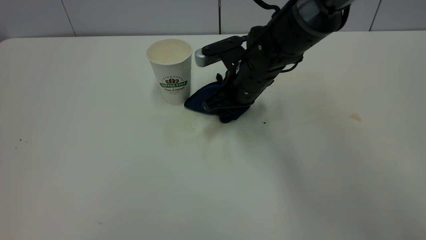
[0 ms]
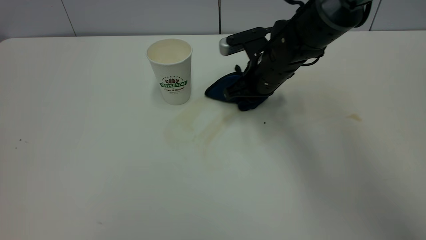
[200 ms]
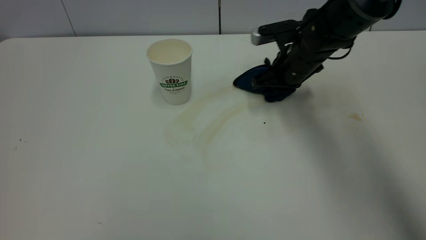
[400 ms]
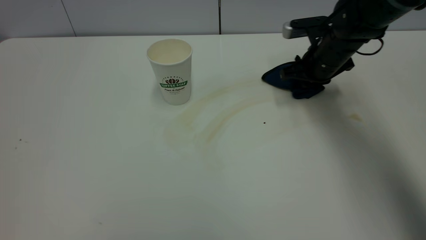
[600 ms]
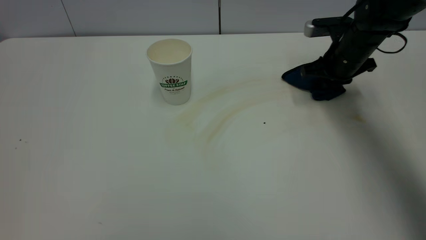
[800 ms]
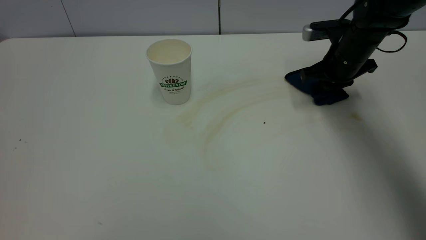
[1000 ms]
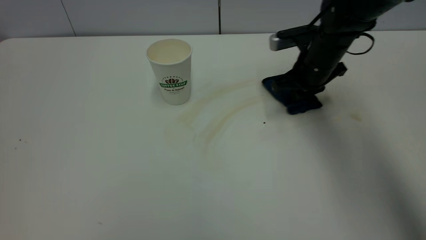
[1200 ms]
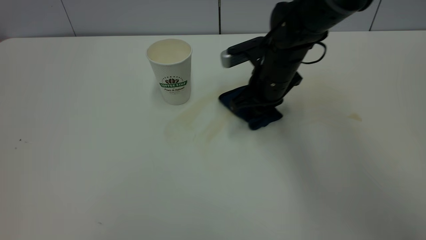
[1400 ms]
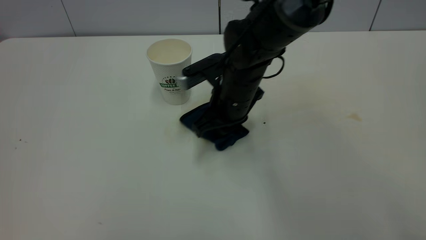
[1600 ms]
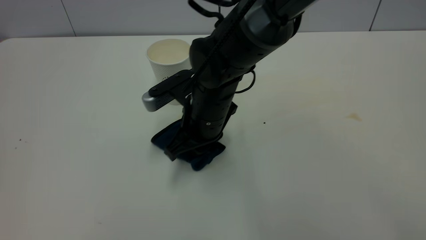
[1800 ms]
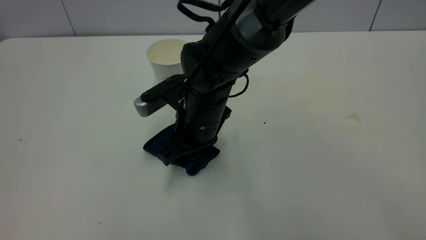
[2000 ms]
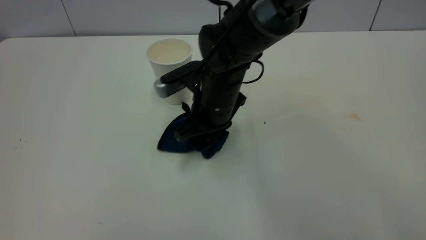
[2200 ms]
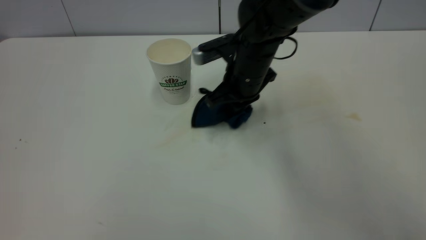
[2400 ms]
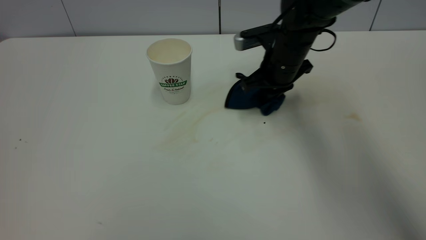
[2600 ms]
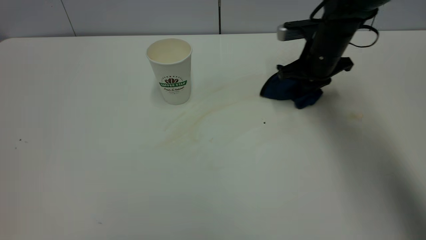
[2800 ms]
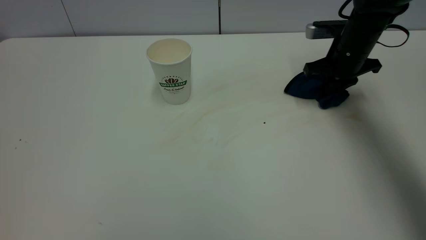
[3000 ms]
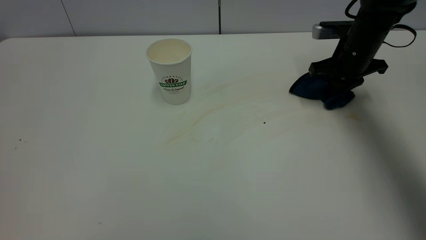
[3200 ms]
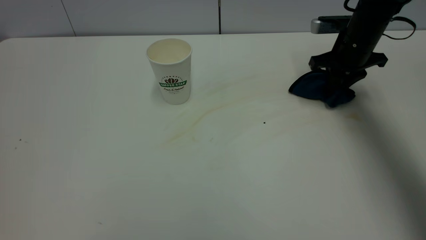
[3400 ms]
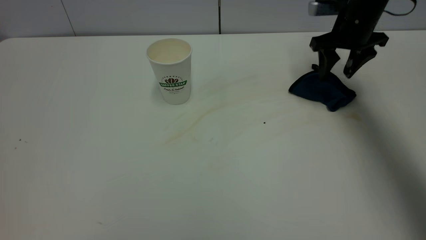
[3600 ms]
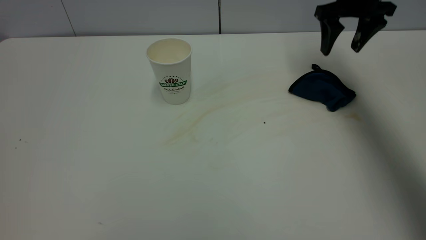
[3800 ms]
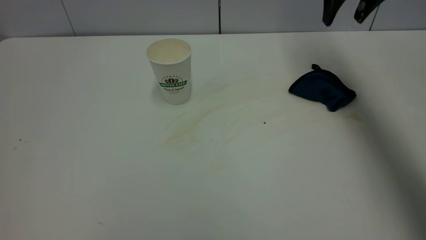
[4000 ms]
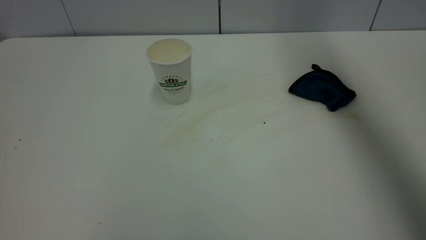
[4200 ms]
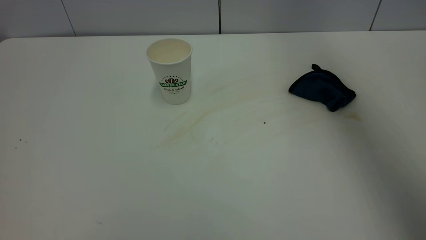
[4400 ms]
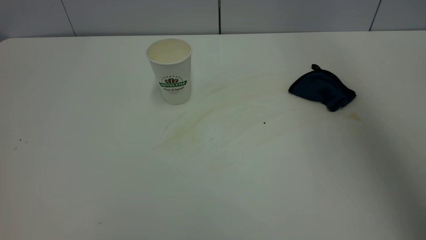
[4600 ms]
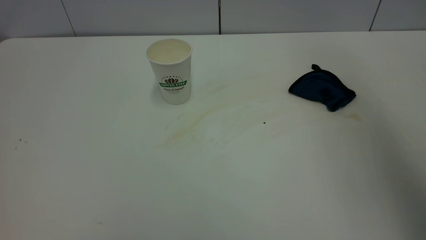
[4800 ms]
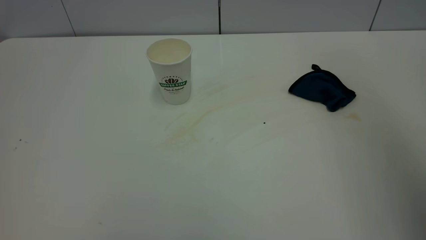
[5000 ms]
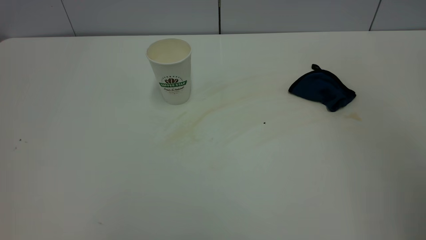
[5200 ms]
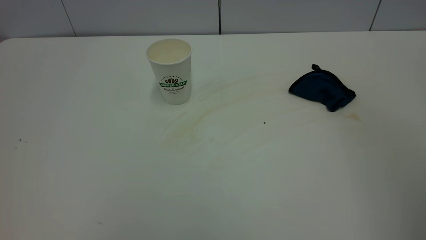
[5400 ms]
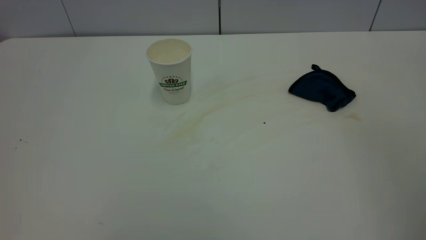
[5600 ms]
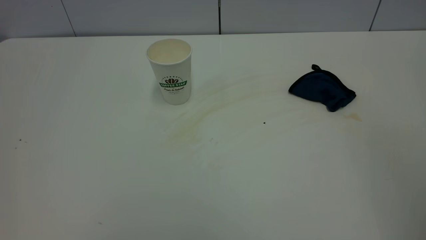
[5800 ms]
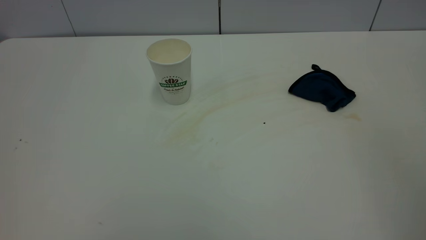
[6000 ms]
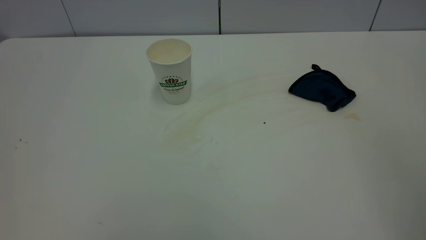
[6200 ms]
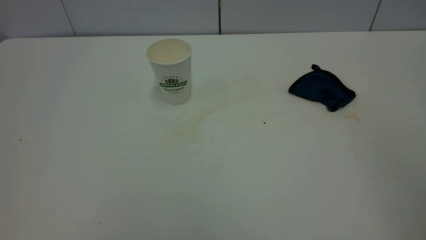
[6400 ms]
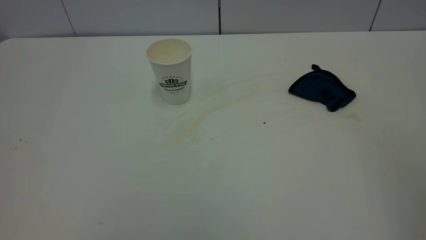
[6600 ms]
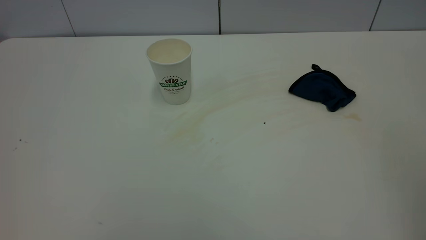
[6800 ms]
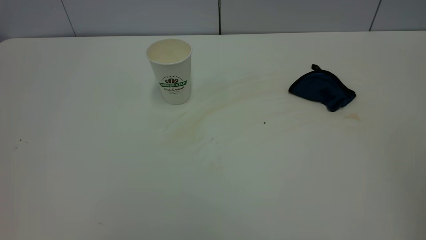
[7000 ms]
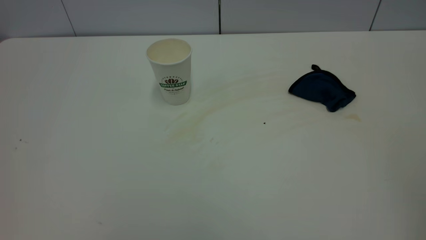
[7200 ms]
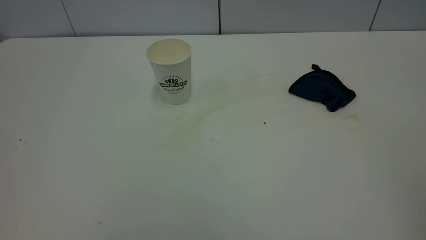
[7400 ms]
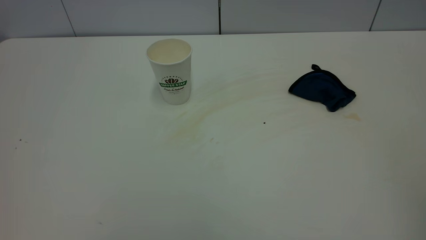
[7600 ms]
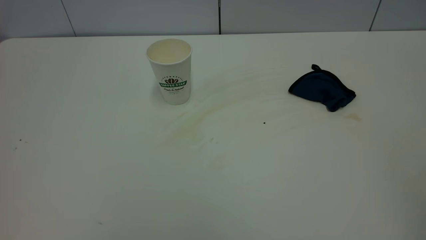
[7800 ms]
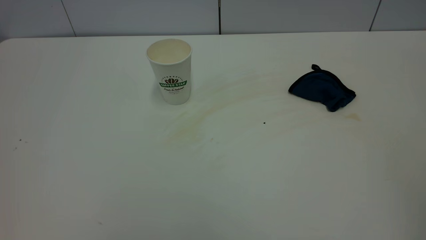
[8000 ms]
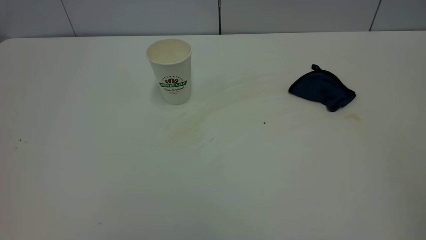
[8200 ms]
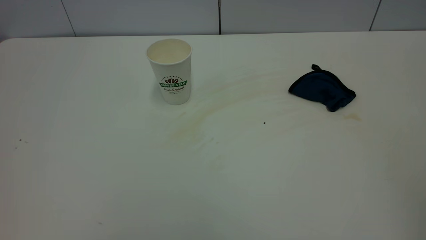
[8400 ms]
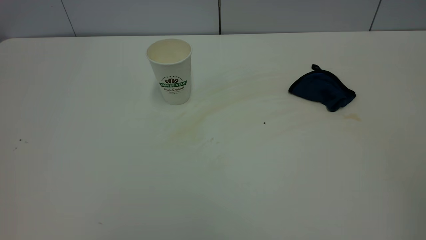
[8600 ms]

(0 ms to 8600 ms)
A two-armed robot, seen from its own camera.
Task of the whole recording: the left gripper pick up the fallen cup and place it upright, the right gripper grasp the blue rag and wipe the tea stain on the table, the right gripper put the blue rag back in its original position.
Step, 0 ms - 3600 ms: Wipe the stains off the table with a rag.
0 ms - 1400 ms: The right gripper goes to the right and returns, roughly 20 cm each way.
1400 ms - 2800 ms: The right gripper goes approximately 15 cm to the right and forward.
2800 ms - 4400 ms: The right gripper moves upward, some 35 cm, and opens.
4400 ms - 5800 ms: The right gripper goes approximately 30 cm backward.

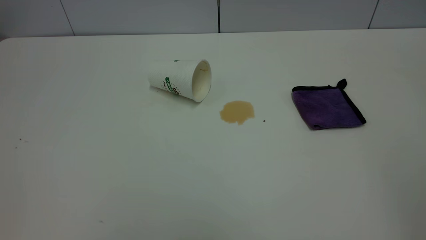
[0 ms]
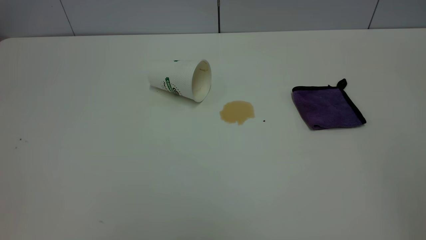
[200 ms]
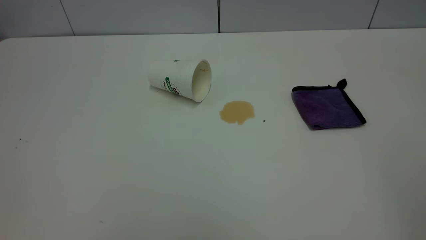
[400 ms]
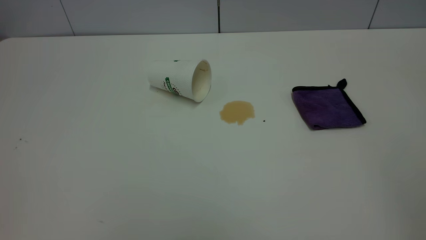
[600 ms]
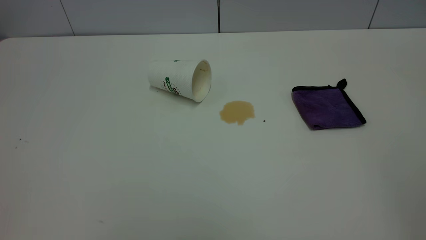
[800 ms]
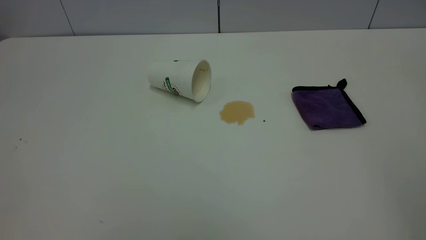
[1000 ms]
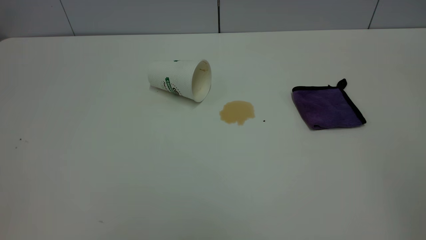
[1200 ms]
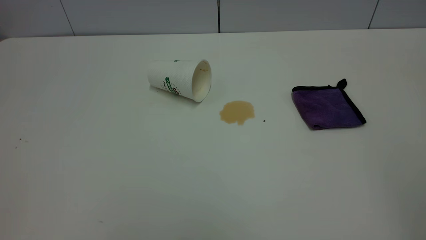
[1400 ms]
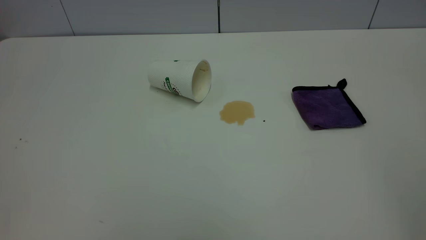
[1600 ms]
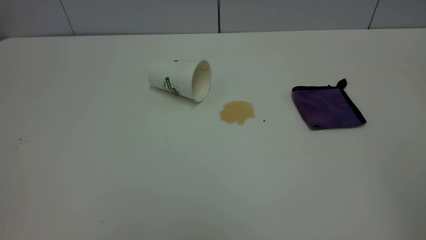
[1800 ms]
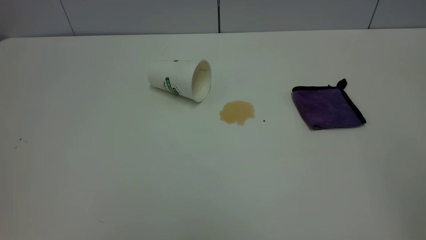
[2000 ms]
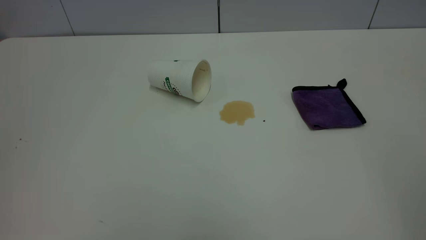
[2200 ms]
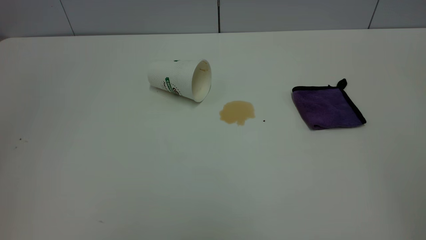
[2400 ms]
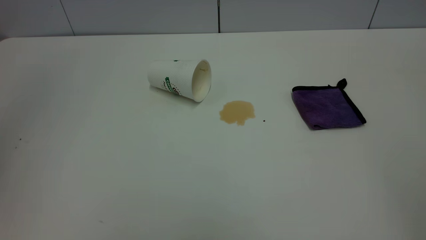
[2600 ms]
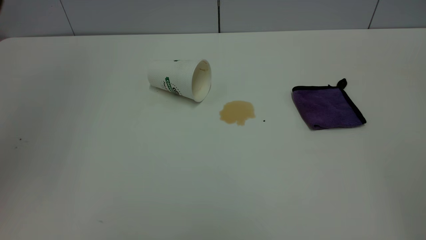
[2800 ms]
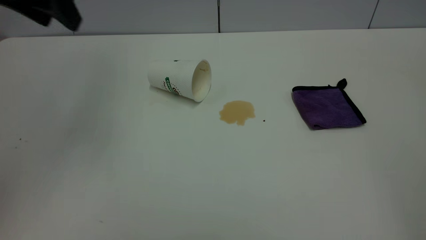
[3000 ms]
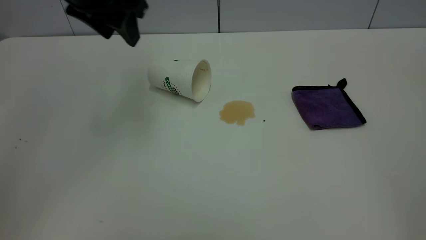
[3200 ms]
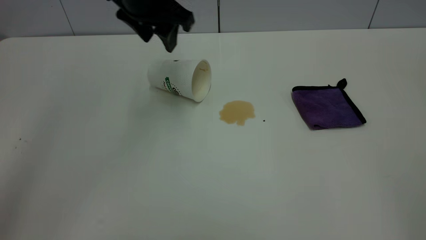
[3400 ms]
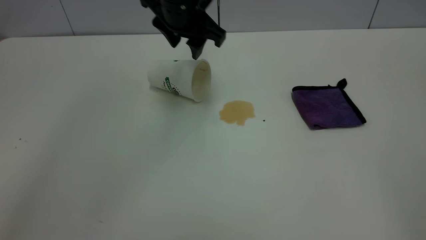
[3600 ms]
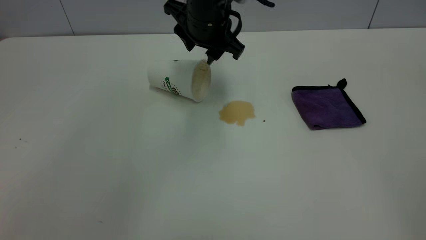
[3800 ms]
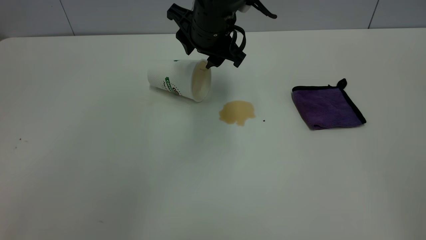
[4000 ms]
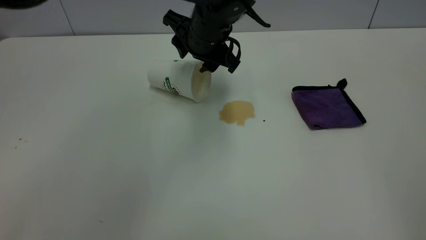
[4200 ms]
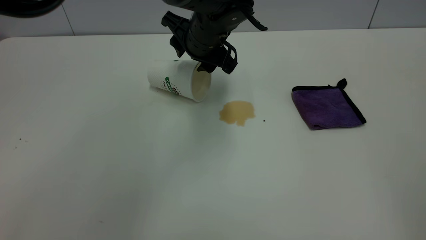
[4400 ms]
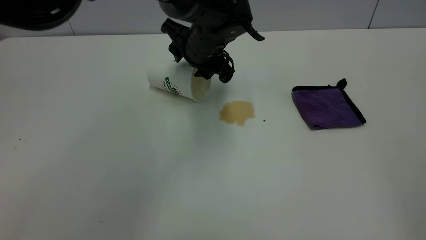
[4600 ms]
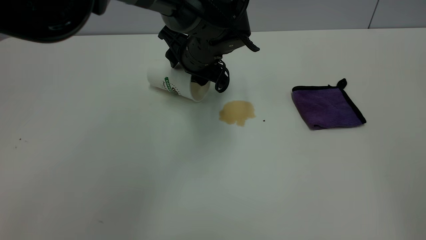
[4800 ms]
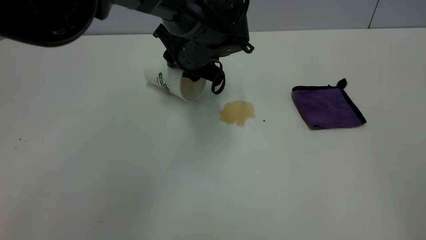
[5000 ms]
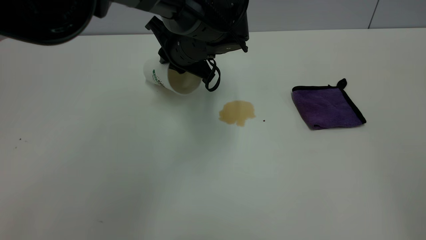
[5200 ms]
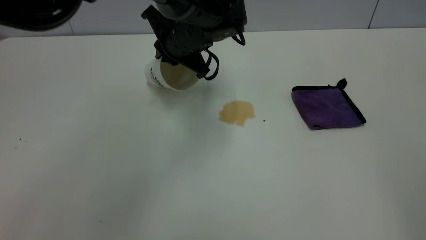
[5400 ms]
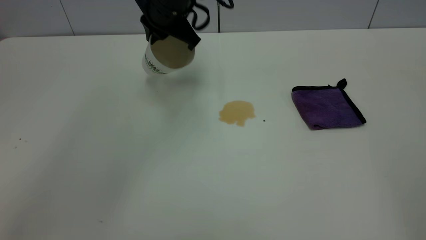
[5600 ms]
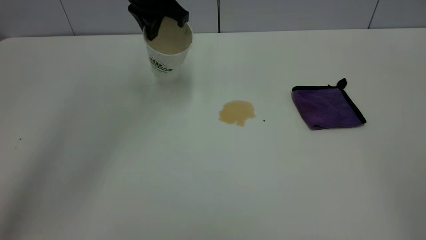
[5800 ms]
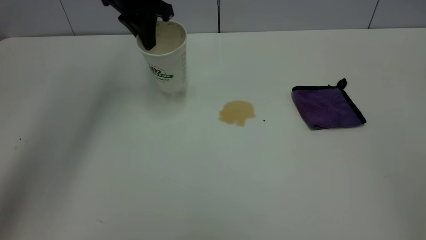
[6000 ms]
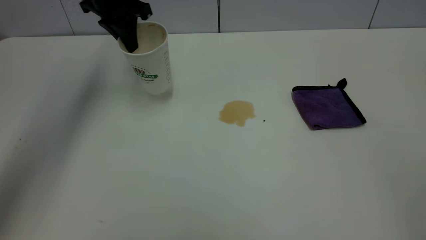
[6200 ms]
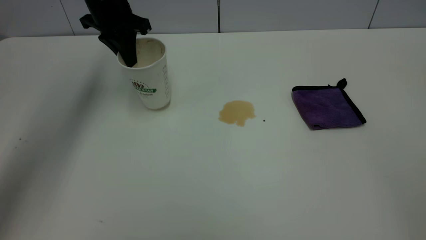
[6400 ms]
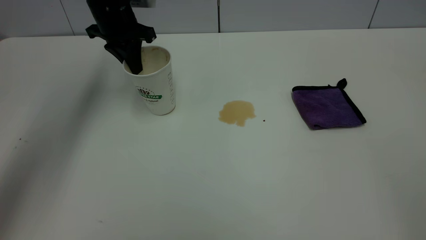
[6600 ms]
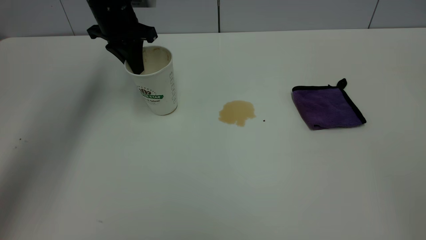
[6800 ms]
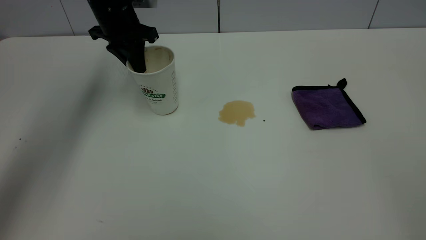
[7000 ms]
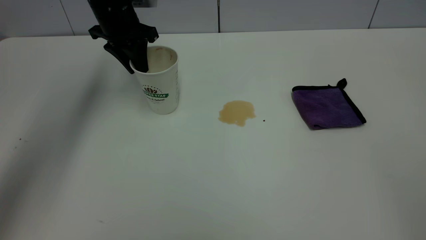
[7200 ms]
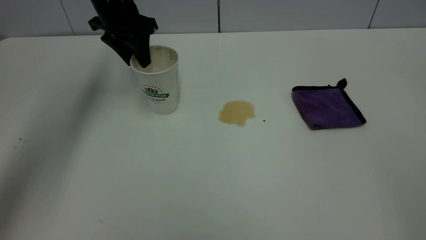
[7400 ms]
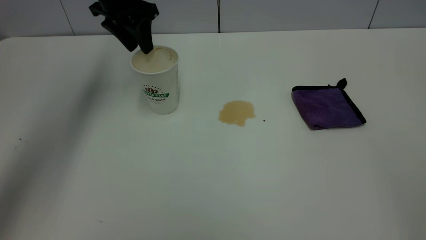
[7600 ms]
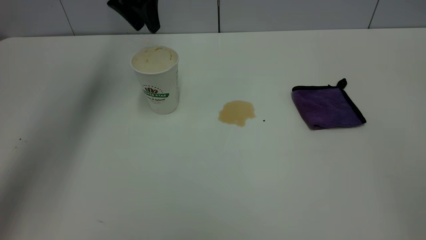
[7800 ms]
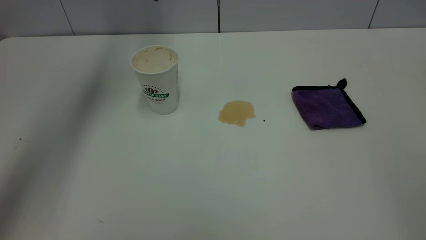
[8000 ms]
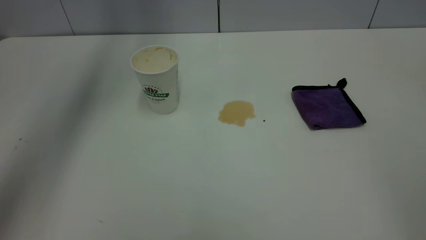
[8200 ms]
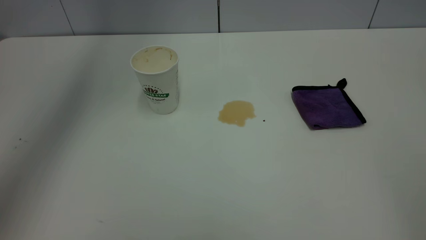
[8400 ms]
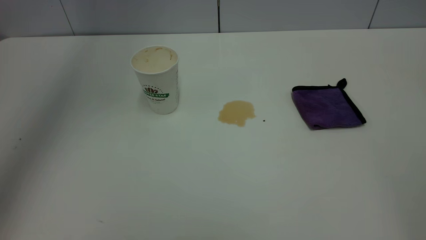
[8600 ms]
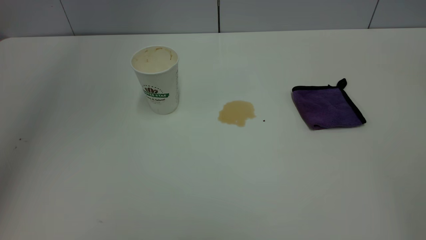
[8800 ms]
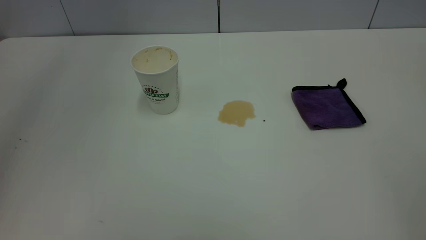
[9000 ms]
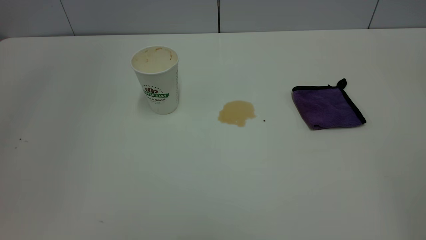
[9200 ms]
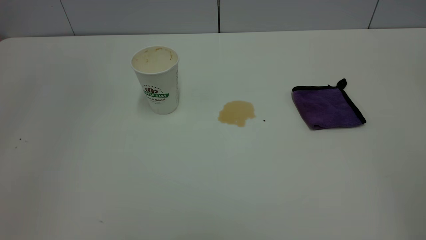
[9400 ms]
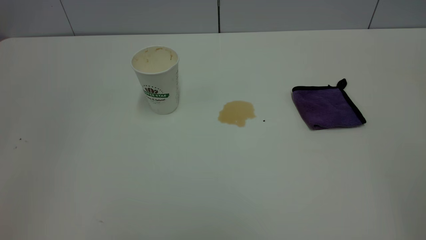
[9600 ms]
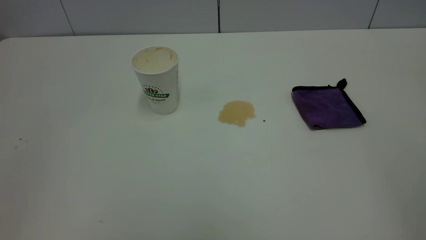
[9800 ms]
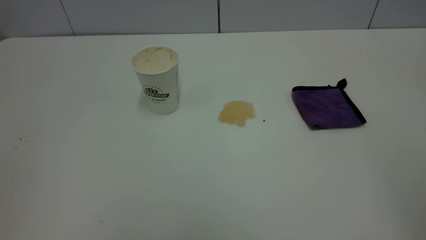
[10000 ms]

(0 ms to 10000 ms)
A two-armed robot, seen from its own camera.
Task of the whole recording: the left gripper pick up the fallen cup and place it upright, the right gripper grasp the purple rag and wipe the tea stain on the table, the right gripper put the purple rag back in its original position.
Step, 0 ms - 7600 ms: Stand the paper cup upright.
0 ms - 1400 ms: Neither gripper changes place.
2800 ms - 4200 ms: The left gripper heads to the right, downward and forward, covering approximately 35 cm.
4200 ms - 5800 ms: The left gripper shifts some 15 cm to the left, upward and forward, and closes up.
5800 ms - 7200 ms: The left gripper is displaced to the left and downward by some 10 cm, and opens up.
7200 ms - 8600 ms: The left gripper is displaced upward by about 35 cm.
8600 ms - 10000 ms: The left gripper goes approximately 40 cm backward and downward.
